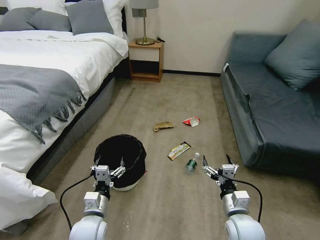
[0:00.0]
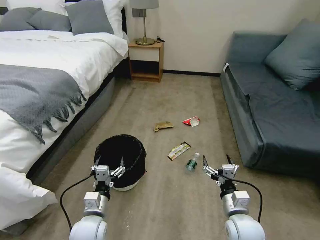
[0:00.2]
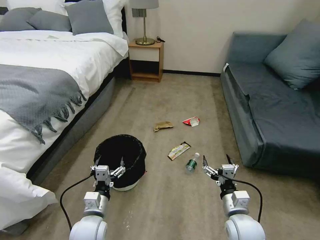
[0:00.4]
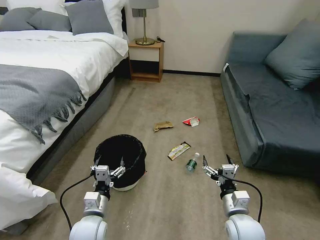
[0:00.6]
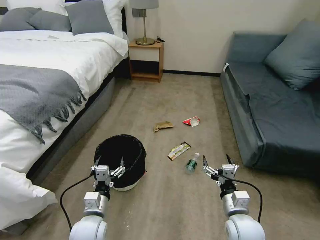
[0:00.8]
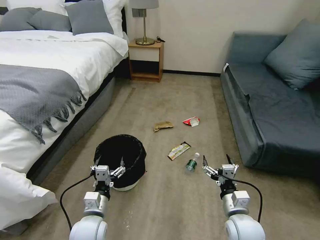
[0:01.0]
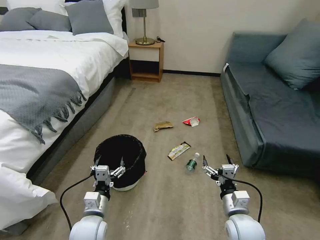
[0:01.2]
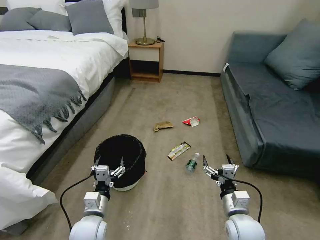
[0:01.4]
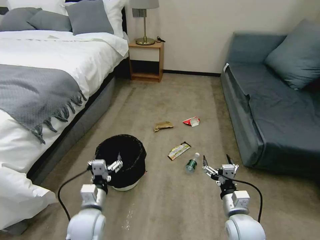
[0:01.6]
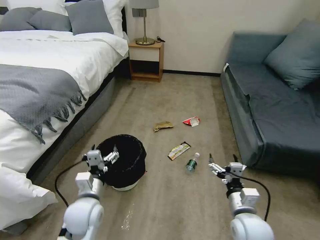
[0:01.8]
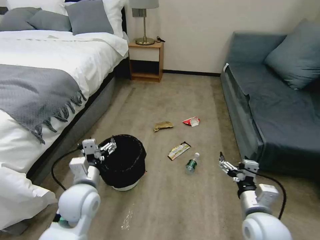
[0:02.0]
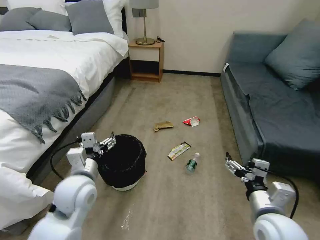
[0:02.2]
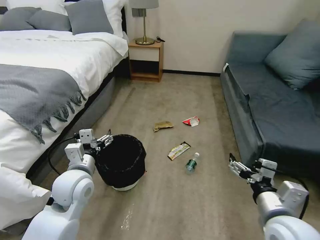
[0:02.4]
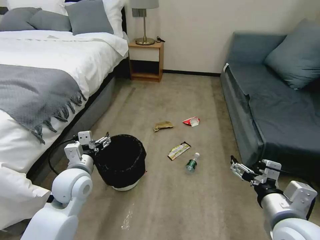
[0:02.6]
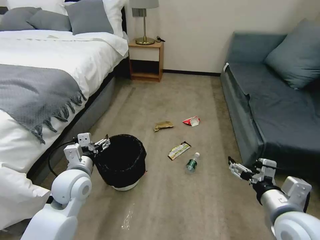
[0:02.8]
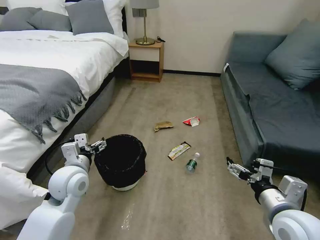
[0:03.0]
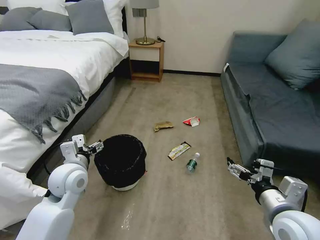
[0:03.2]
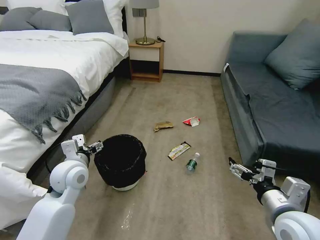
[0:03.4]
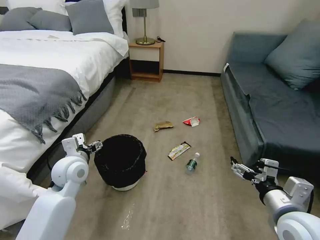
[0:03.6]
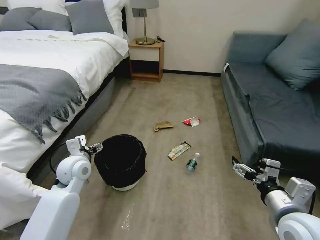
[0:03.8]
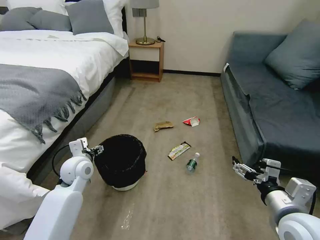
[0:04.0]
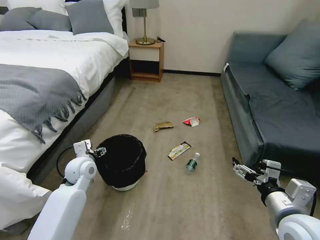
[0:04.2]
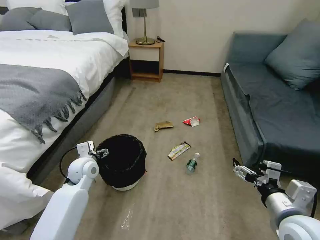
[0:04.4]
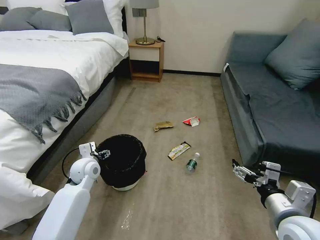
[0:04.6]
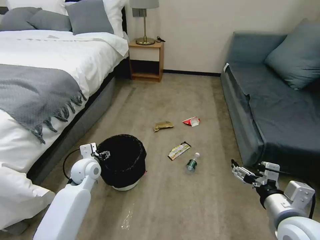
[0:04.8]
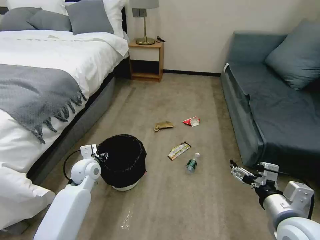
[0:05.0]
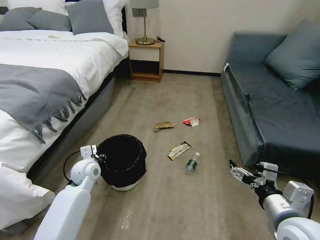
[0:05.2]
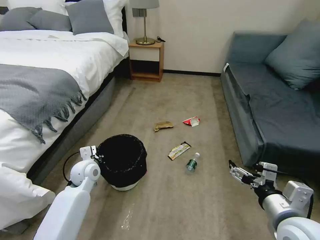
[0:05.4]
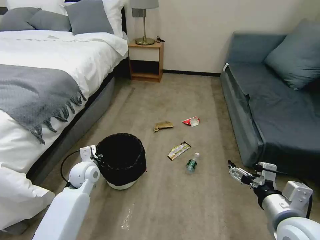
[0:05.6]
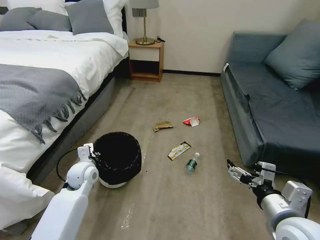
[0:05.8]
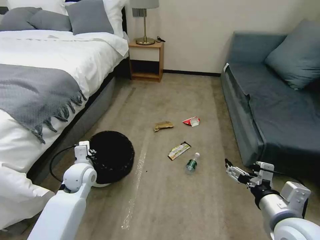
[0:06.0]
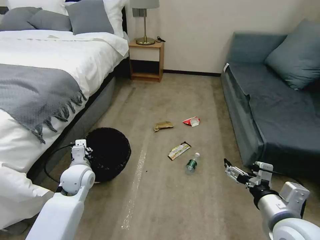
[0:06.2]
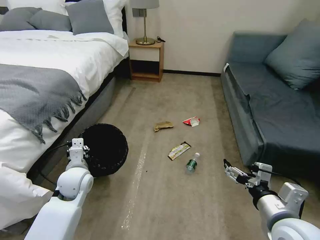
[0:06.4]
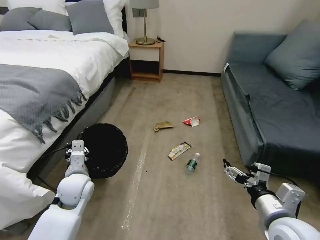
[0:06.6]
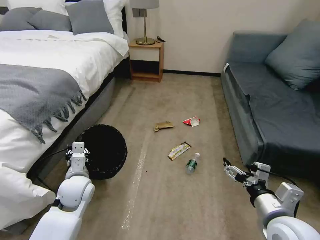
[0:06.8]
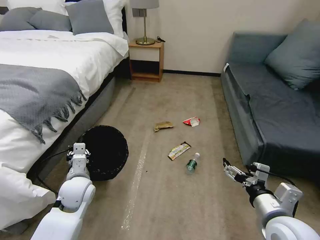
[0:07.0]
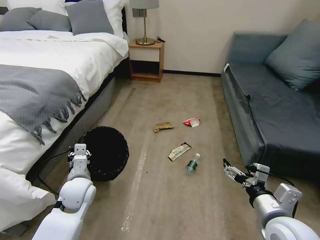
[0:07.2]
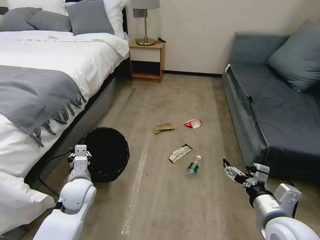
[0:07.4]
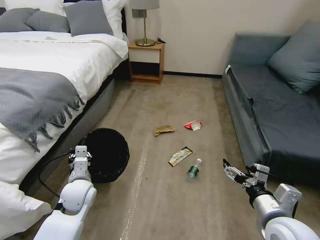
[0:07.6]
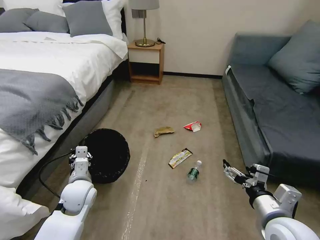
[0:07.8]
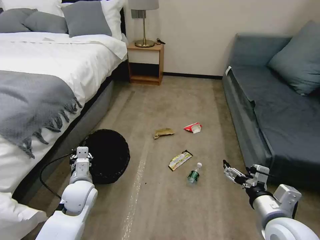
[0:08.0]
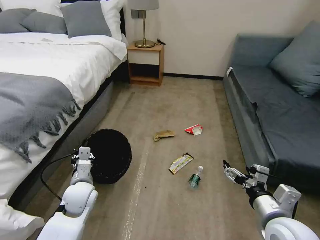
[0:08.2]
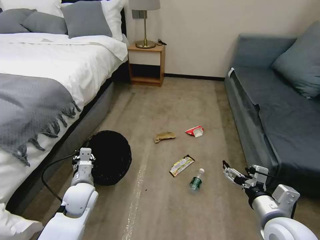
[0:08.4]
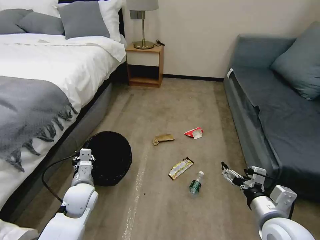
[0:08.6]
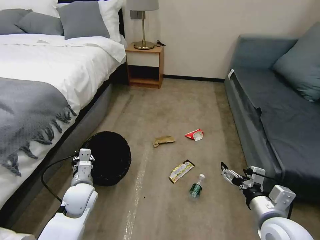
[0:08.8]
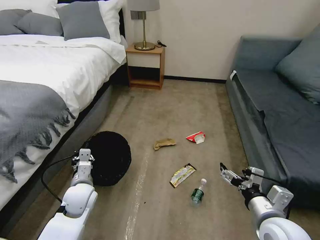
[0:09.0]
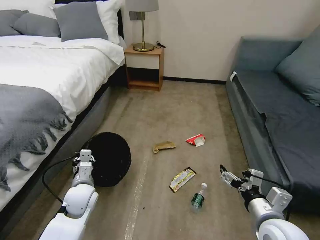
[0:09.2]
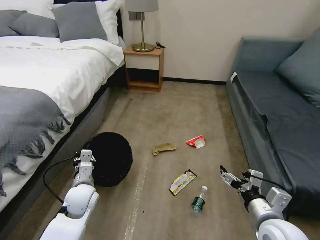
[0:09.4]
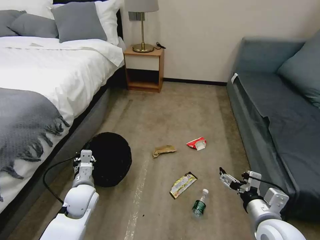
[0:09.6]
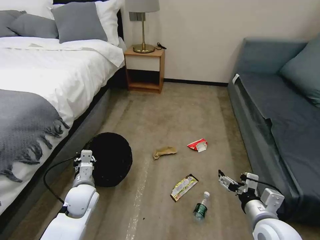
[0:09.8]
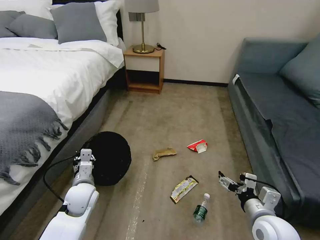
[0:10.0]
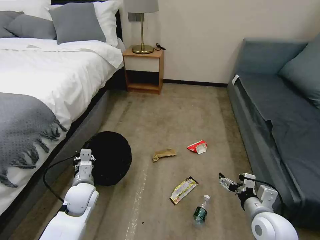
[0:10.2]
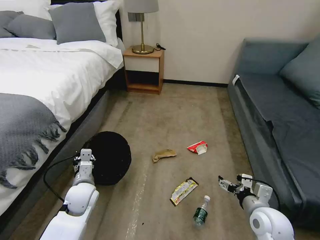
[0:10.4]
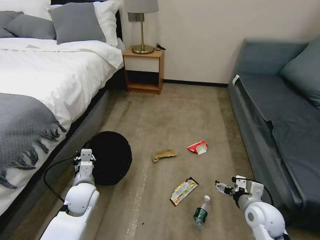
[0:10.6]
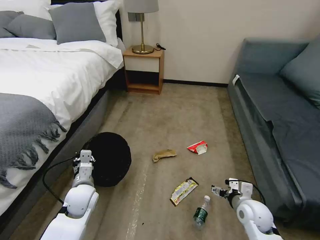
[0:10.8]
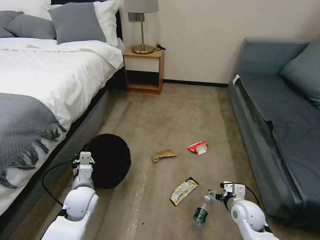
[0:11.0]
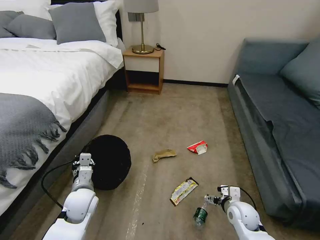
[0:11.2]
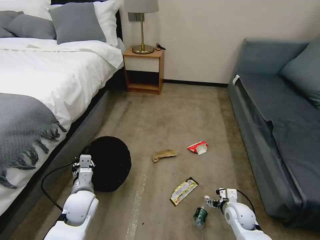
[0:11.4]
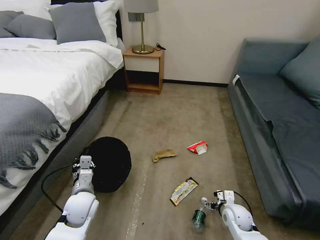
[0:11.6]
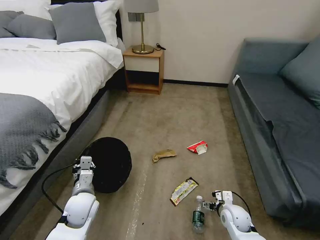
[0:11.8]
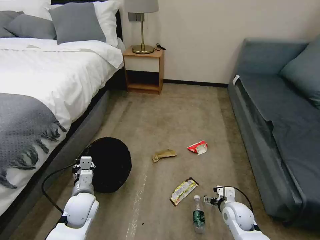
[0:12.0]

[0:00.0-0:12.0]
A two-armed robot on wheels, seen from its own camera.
Task of the whole recording: Pick up the trash bin, then pick up the garbage on the floor and place it into the trash bin.
0:01.6 to 0:03.0: The right gripper is displaced upward by roughly 15 cm; the left gripper travels upward and forward by approximately 15 cm.
0:03.0 to 0:04.4: The left gripper heads forward and downward, covering approximately 10 cm.
0:04.4 to 0:06.0: The left gripper closes its fingers.
0:06.0 to 0:07.6: The left gripper moves backward, approximately 5 cm.
0:09.0 to 0:10.4: The right gripper shifts some 5 cm downward.
0:10.4 to 0:12.0: The right gripper goes roughly 15 cm downward and forward.

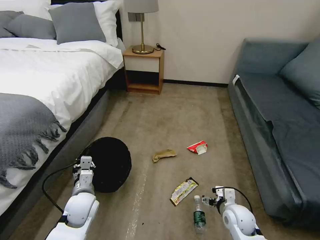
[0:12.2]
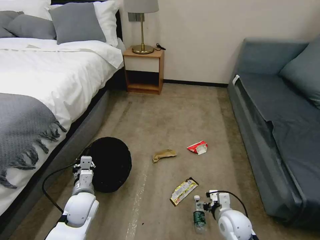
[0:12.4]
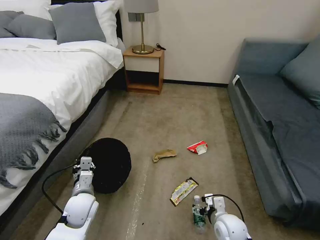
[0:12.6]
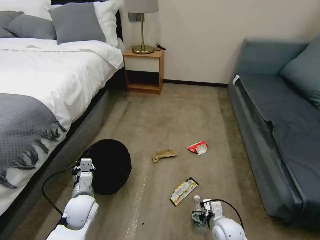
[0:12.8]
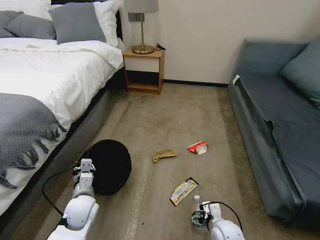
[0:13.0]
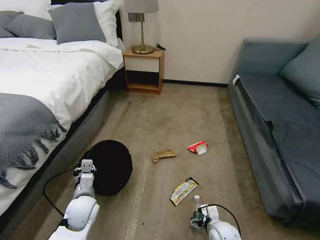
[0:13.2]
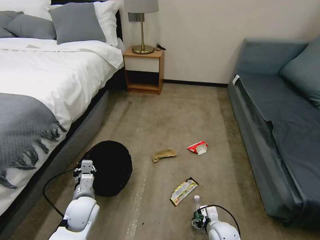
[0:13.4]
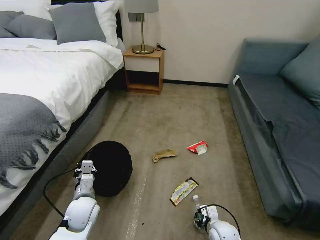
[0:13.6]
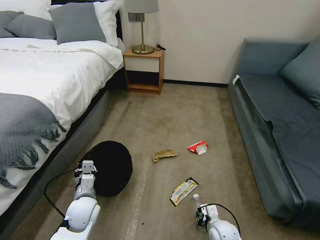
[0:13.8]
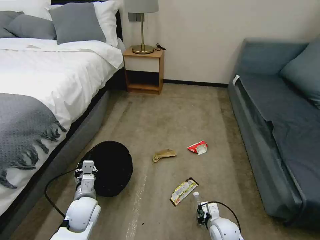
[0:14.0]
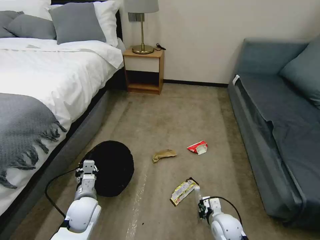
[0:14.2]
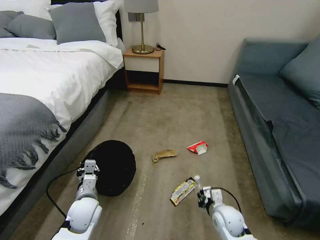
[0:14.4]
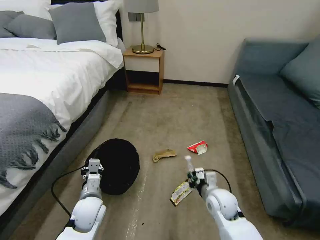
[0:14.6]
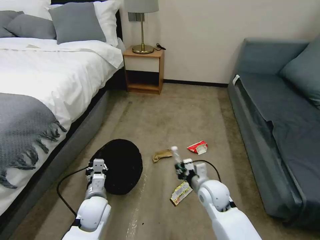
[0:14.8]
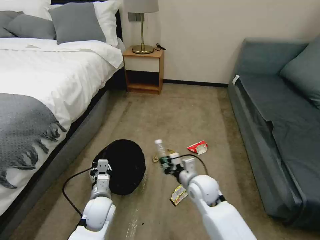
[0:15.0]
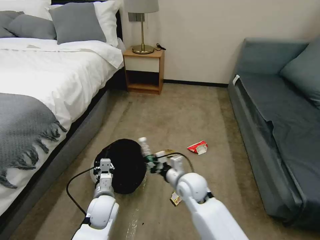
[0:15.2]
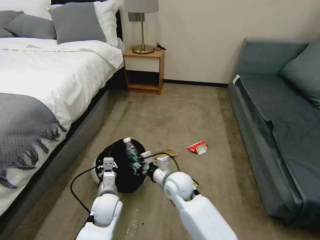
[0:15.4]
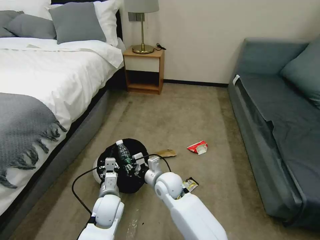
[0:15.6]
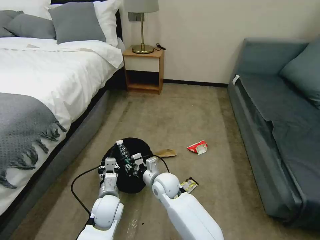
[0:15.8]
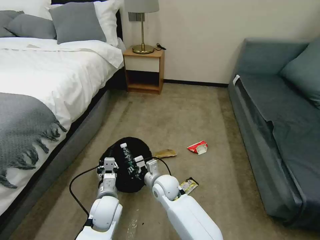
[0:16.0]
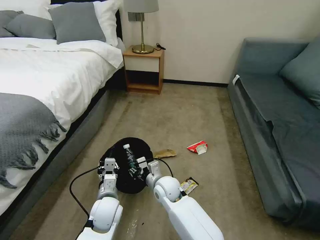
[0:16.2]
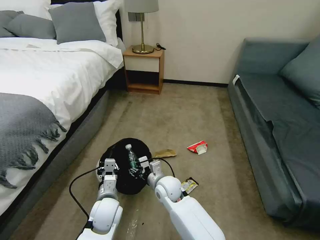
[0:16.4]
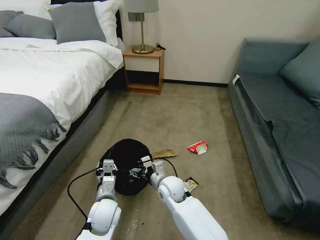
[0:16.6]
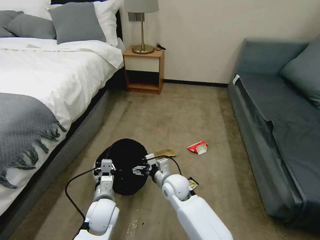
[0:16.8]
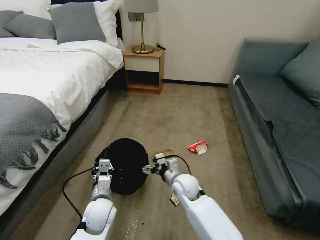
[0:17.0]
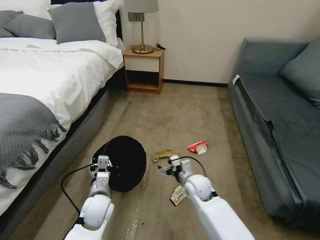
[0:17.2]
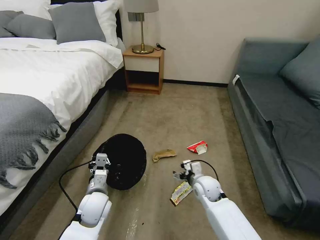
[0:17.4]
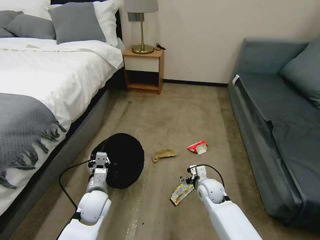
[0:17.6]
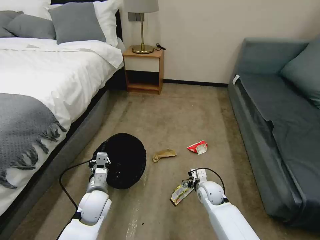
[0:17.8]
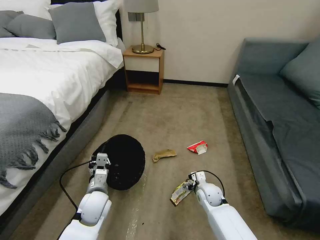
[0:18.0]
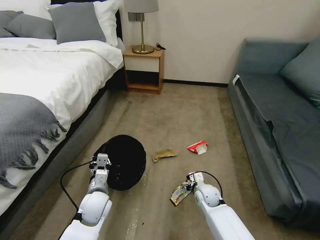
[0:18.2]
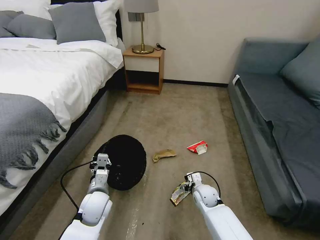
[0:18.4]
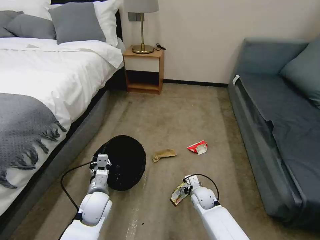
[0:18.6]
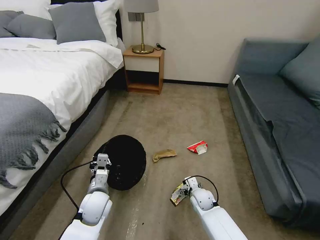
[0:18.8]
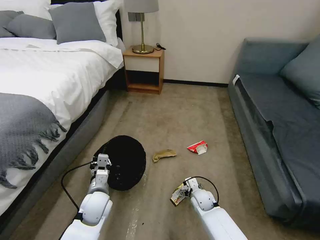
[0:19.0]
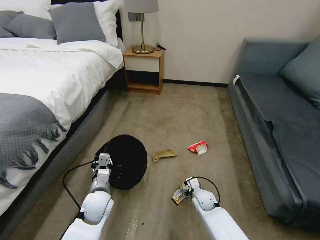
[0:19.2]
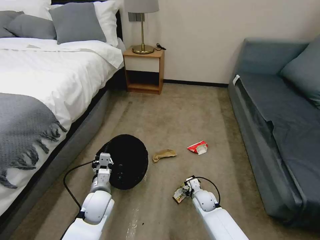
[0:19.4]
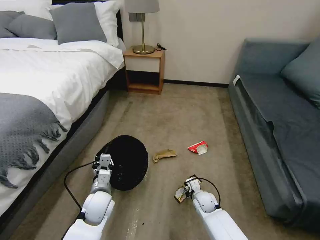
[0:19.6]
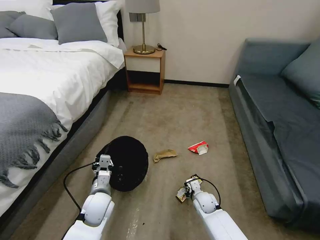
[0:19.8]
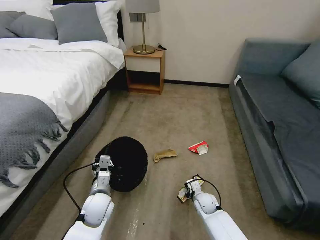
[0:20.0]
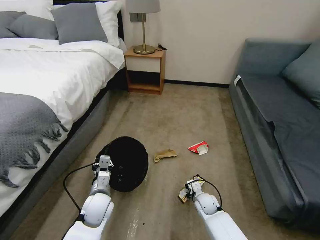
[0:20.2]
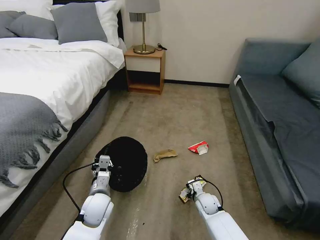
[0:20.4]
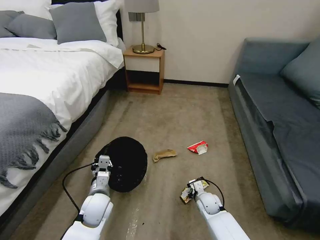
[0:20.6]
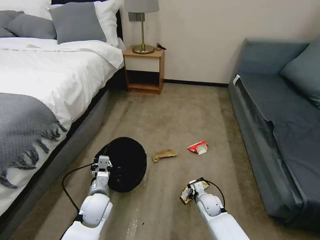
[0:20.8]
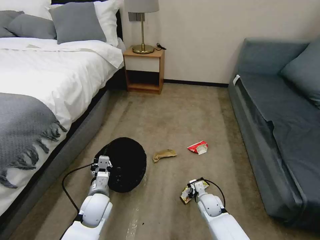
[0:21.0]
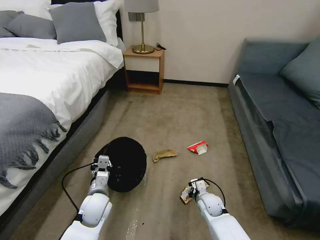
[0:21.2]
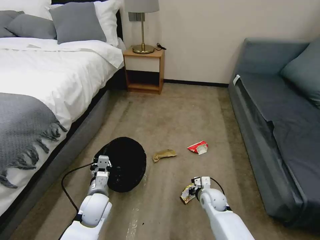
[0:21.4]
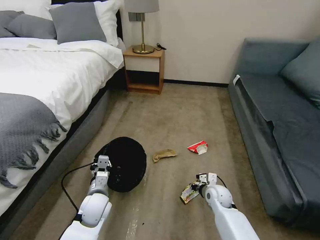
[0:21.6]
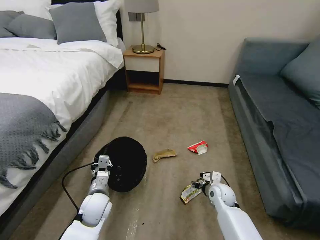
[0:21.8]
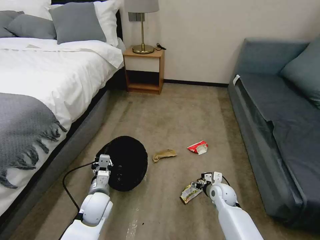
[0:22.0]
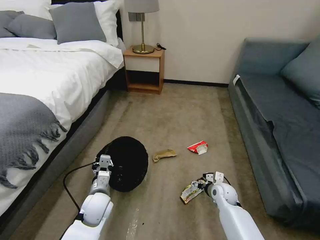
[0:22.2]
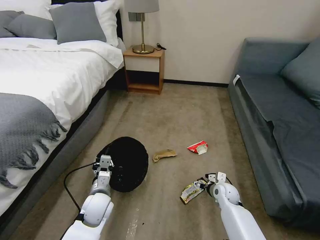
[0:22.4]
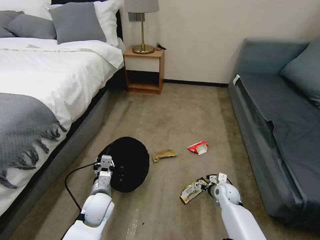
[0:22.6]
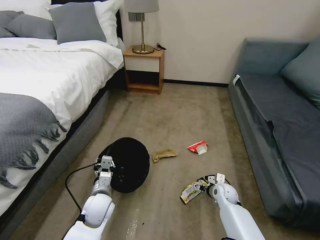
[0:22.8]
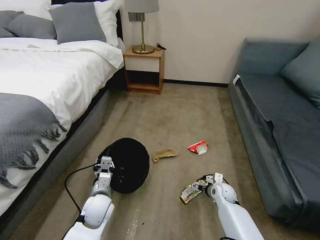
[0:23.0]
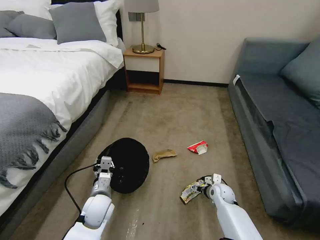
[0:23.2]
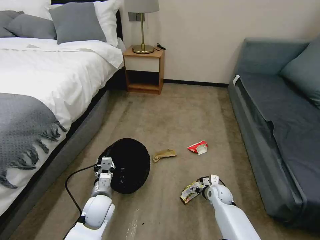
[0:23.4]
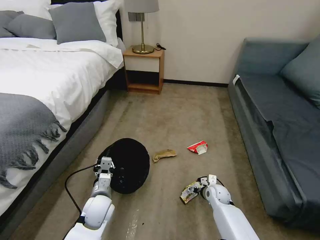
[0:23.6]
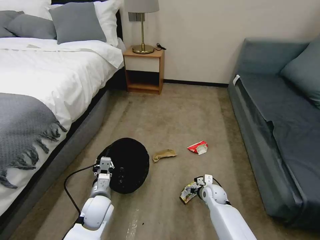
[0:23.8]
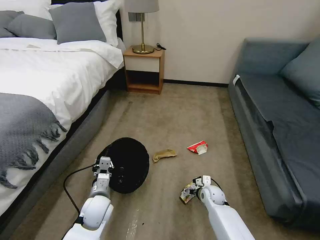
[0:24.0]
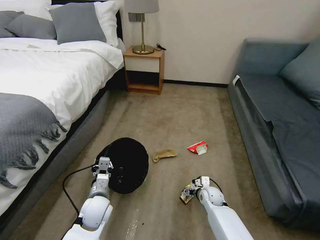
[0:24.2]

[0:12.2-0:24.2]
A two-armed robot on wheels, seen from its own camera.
Task of the whole recording: Pick up the trash bin, then pick up the garbage on the floor and place it into the trash bin.
0:12.2 to 0:13.8: The right gripper goes some 5 cm downward, and closes.
0:13.8 to 0:15.2: The right gripper goes approximately 25 cm upward, to the left and forward; the left gripper heads to the right, covering roughly 5 cm.
0:15.2 to 0:16.6: The right gripper travels to the left by approximately 5 cm, and opens.
0:16.6 to 0:18.2: The right gripper is displaced to the right and downward by some 20 cm.
0:18.2 to 0:19.8: The right gripper is displaced downward by approximately 5 cm, and closes its fingers.
0:19.8 to 0:21.2: There are only small adjustments of the grippers.
0:21.2 to 0:22.6: The right gripper travels to the right by about 10 cm, and opens up.
0:22.6 to 0:24.2: The right gripper shifts about 5 cm to the left.
